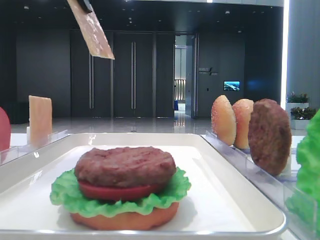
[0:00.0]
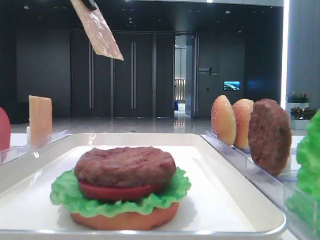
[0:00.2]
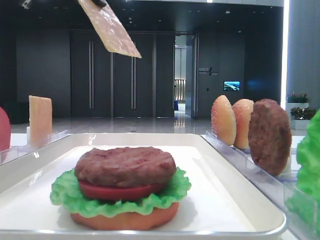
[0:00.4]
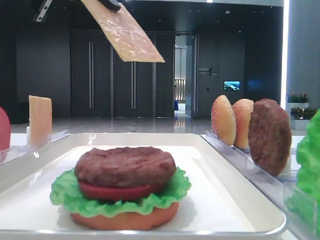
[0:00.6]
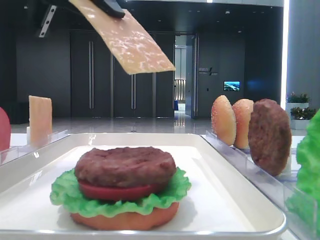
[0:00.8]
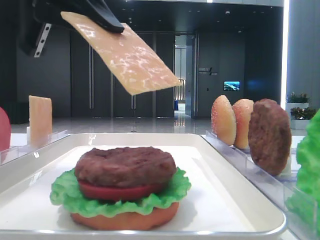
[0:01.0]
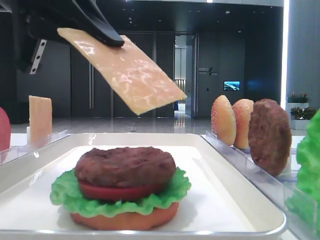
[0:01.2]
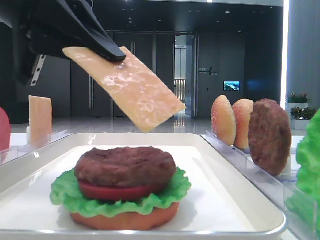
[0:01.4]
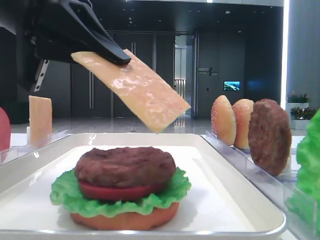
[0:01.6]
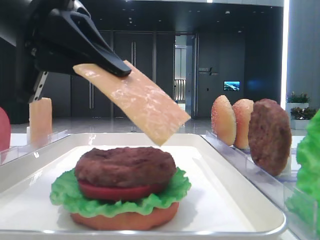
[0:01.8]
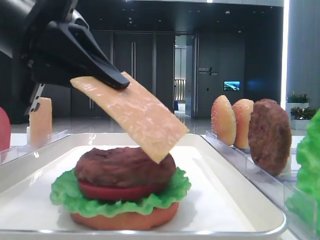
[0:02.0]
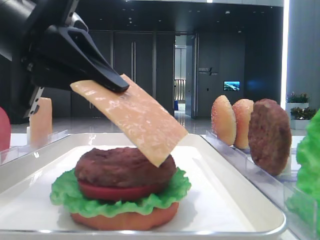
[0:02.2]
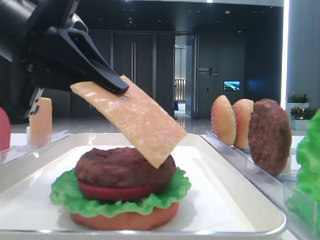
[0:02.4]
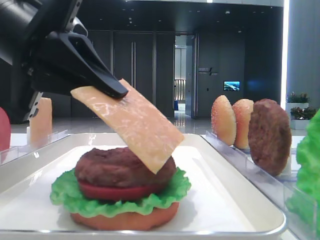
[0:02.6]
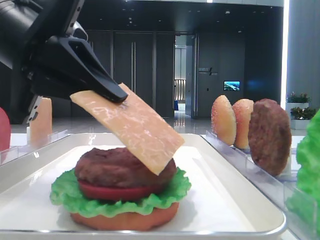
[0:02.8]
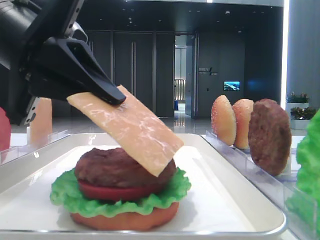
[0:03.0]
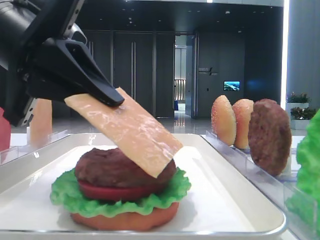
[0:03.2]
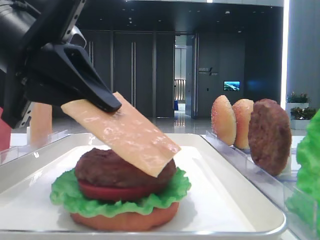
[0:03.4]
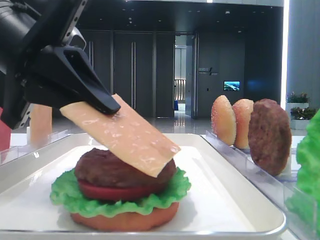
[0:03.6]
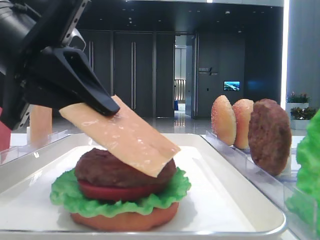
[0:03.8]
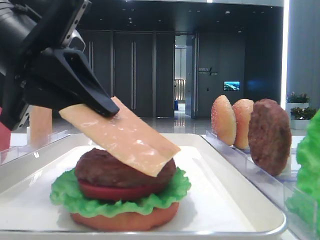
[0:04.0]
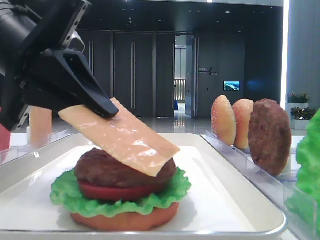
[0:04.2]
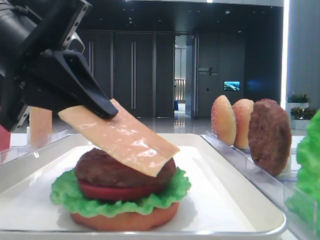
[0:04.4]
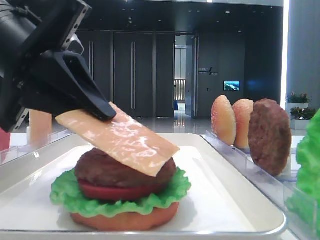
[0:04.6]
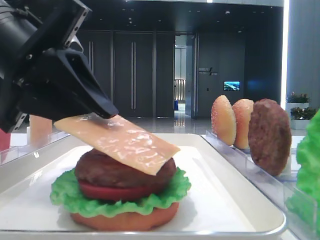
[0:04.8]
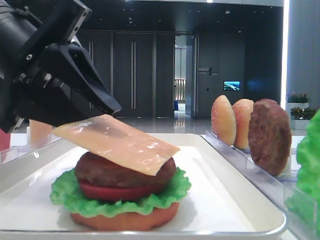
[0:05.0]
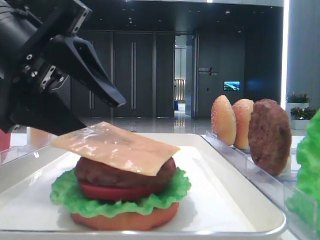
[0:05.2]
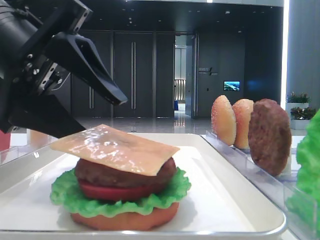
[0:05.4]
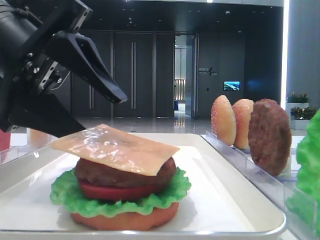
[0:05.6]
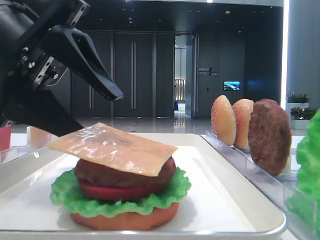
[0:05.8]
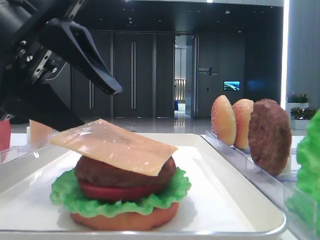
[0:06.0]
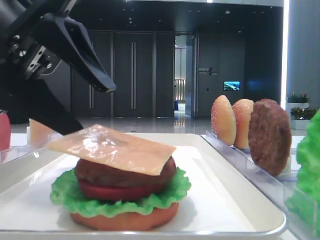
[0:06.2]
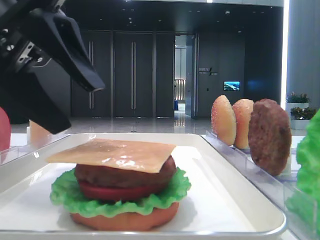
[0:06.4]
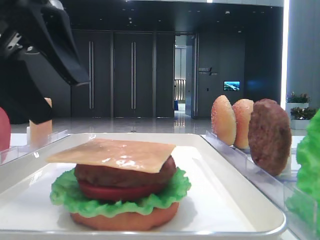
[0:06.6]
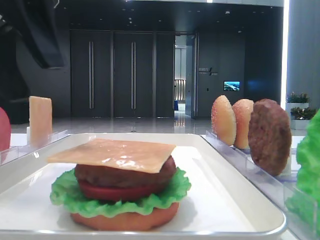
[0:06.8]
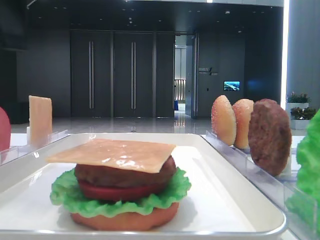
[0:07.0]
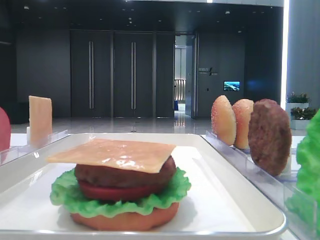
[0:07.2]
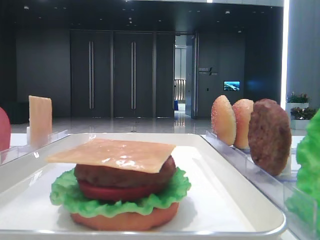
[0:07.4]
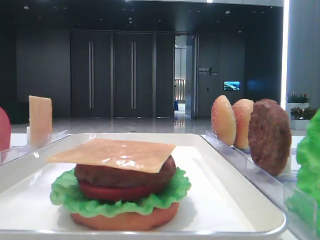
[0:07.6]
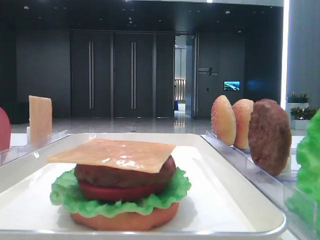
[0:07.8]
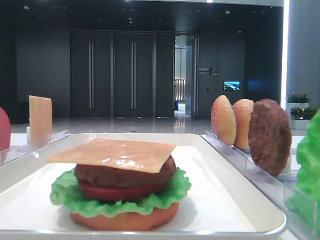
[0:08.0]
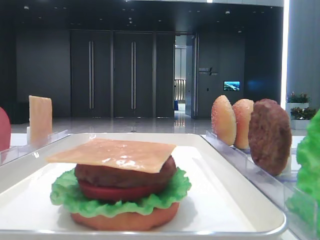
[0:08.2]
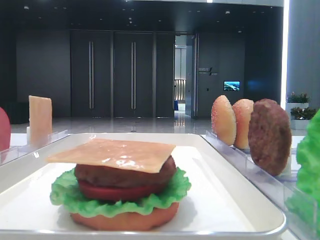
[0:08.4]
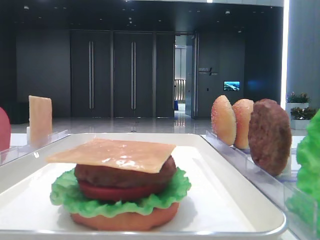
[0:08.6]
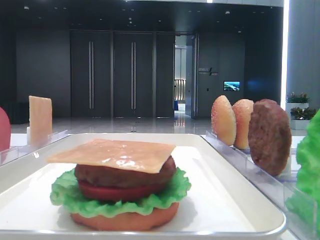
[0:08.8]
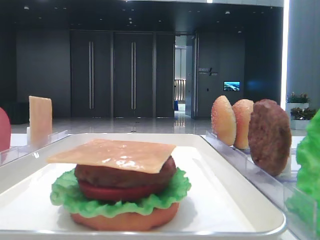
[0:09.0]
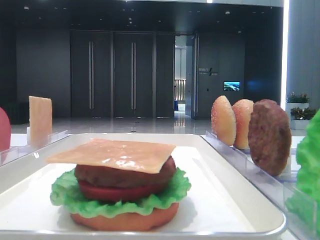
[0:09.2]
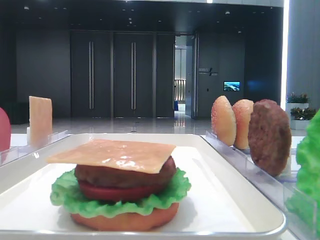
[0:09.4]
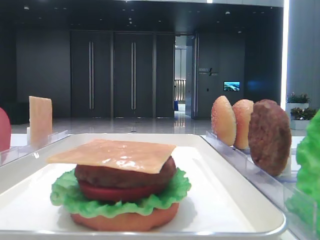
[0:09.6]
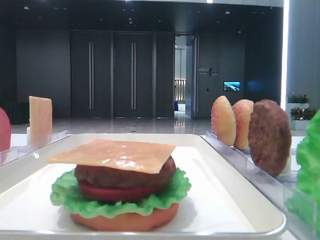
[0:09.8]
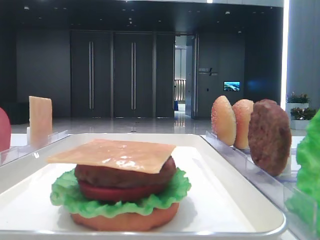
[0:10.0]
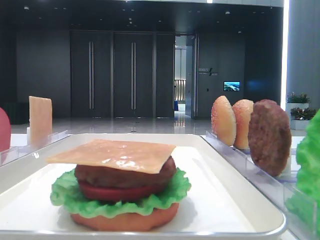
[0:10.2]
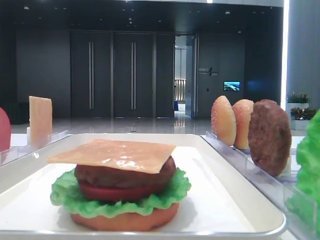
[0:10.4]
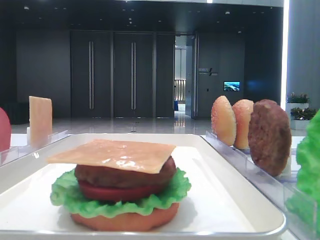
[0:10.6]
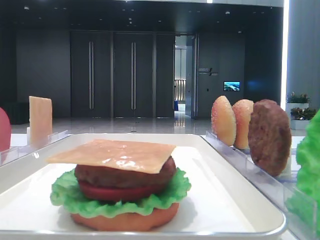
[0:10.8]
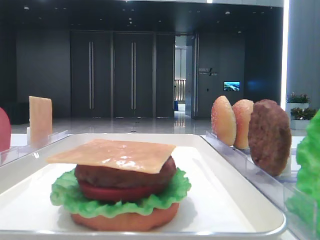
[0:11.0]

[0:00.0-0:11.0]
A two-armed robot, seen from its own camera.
Step, 0:00.0 to 0:06.2: Place the cheese slice on the patty with the left hand.
0:00.0 to 0:01.6: The left gripper moves downward and backward, about 15 cm.
0:01.6 to 0:04.8: There are only small adjustments of the grippers.
0:04.8 to 0:06.2: The left gripper opens up.
0:06.2 to 0:07.8: The left gripper heads to the left and upward, covering roughly 15 cm.
